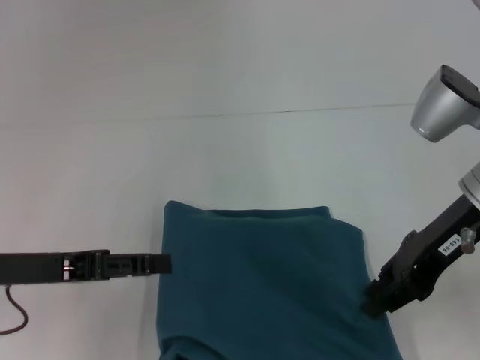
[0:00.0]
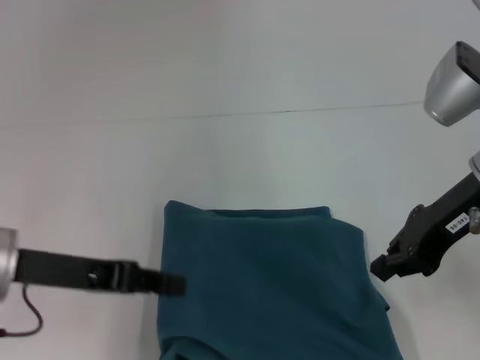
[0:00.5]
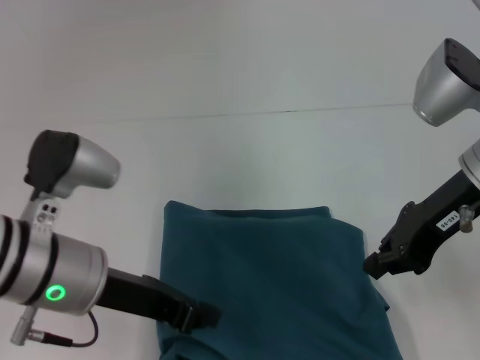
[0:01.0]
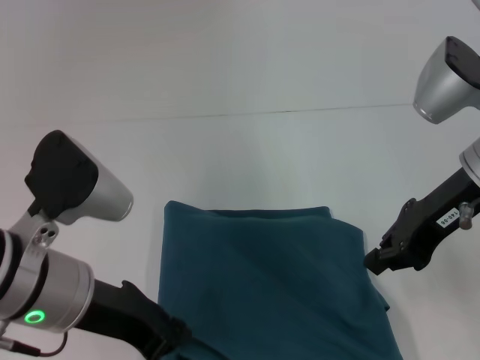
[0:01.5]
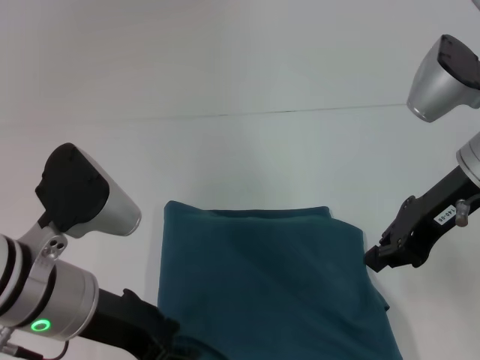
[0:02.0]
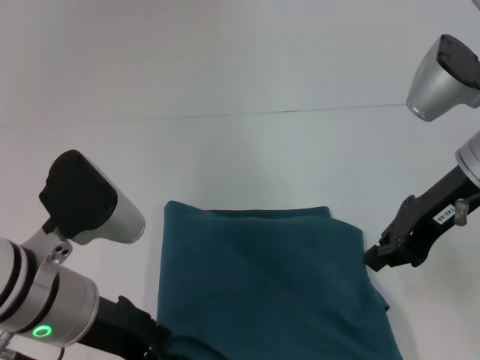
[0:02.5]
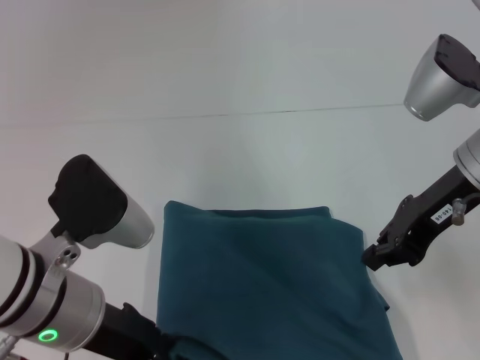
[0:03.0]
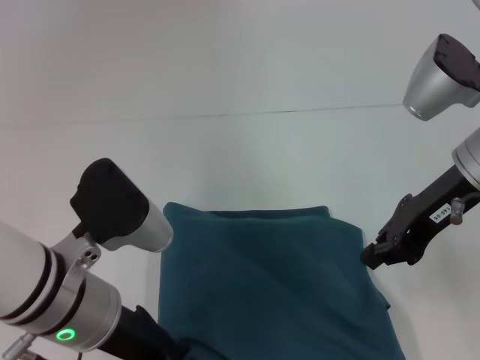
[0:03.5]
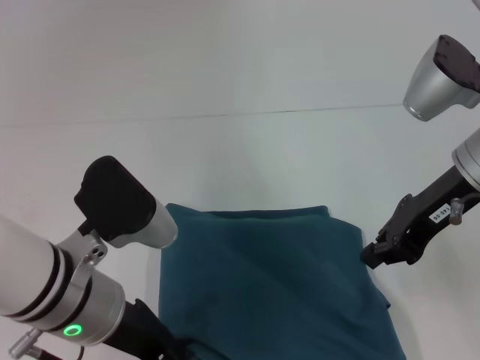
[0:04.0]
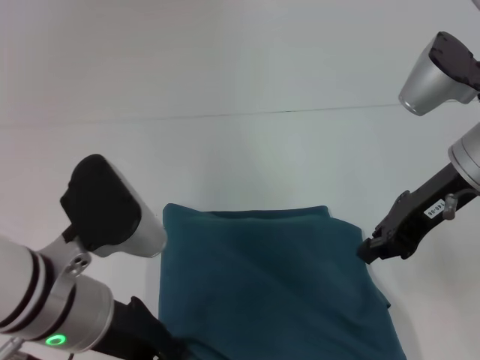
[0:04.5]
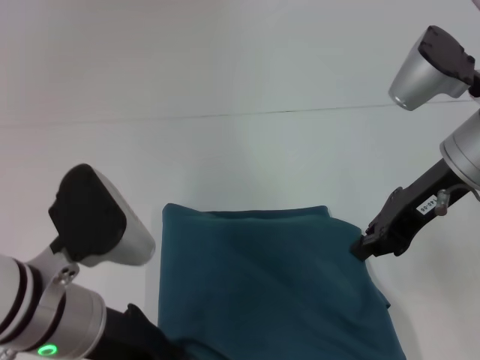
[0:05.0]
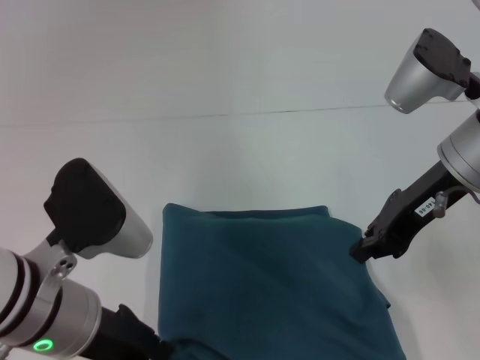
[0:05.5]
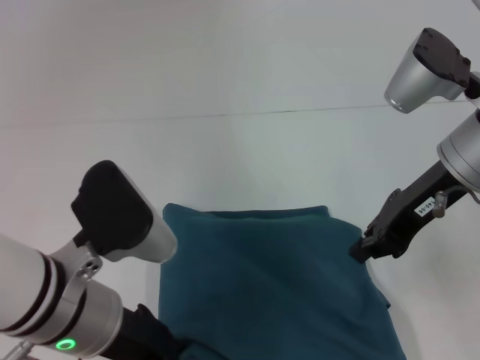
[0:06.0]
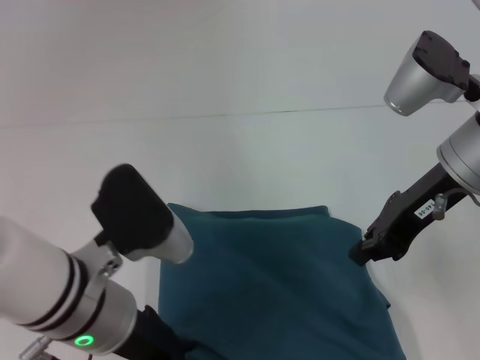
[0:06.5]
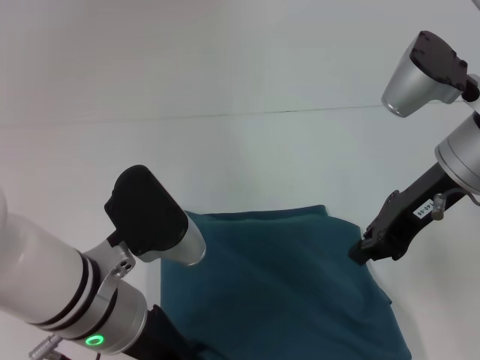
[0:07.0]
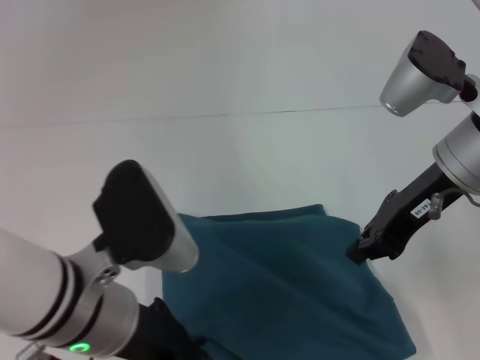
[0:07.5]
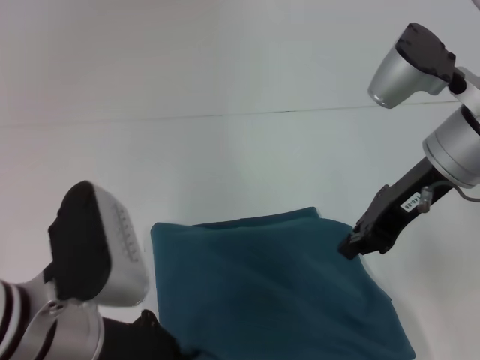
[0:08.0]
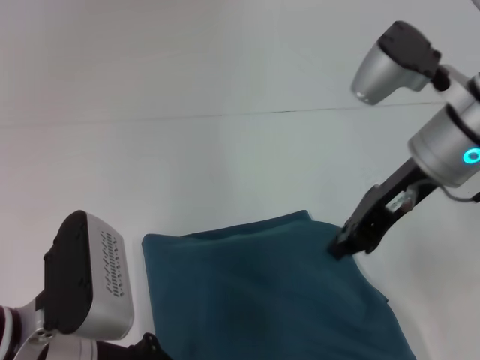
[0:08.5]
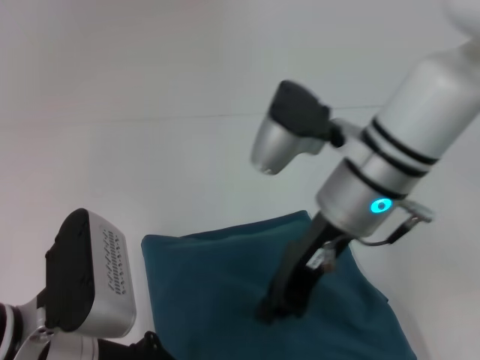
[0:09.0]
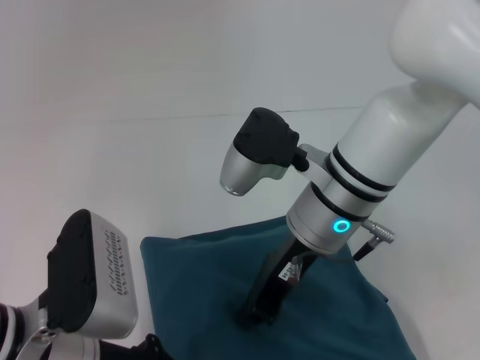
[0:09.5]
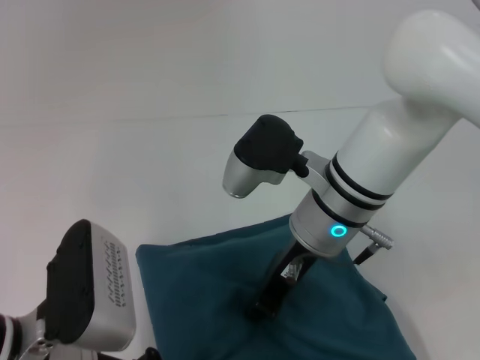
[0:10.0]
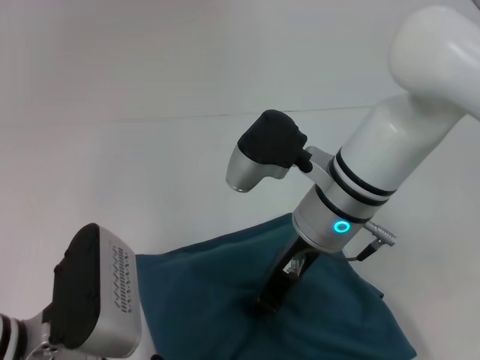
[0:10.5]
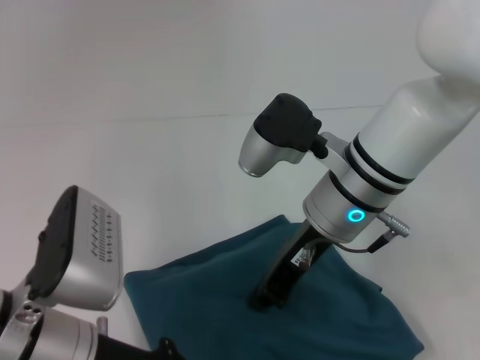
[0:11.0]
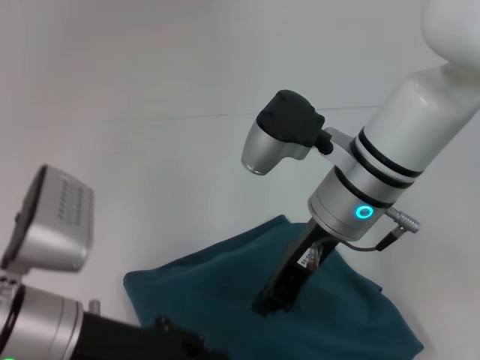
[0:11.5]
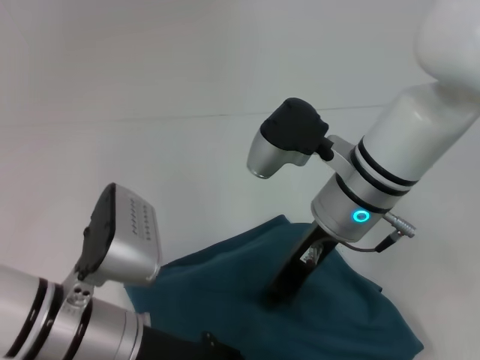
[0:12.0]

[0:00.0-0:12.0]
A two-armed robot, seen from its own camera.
0:00.0 to 0:02.0: The right gripper closes up, while the left gripper goes some 10 cm to the right, and closes its fingers.
0:02.0 to 0:04.0: There are only small adjustments of the grippers.
0:04.0 to 0:06.0: The left gripper opens.
0:06.0 to 0:08.0: The left gripper closes up.
0:08.0 to 0:10.0: The right gripper heads to the left and downward, covering about 15 cm.
0:10.0 to 0:12.0: The left gripper opens.

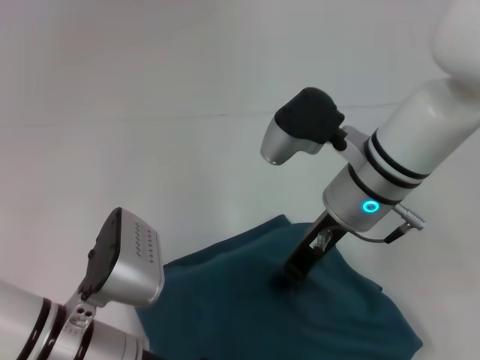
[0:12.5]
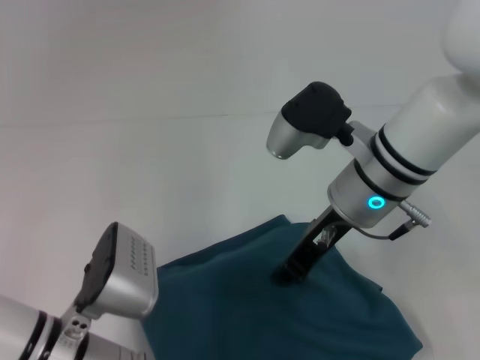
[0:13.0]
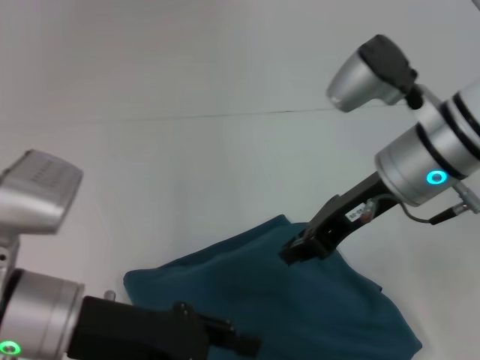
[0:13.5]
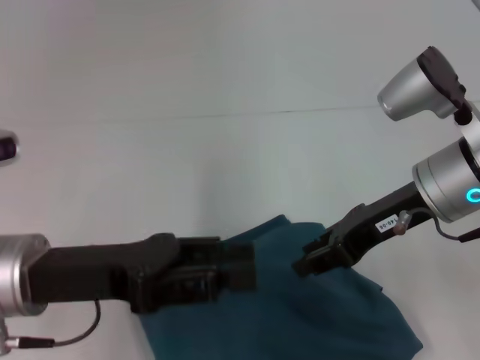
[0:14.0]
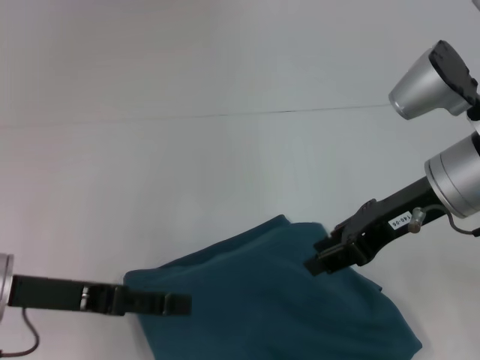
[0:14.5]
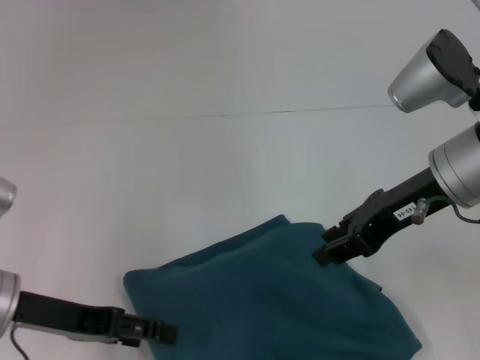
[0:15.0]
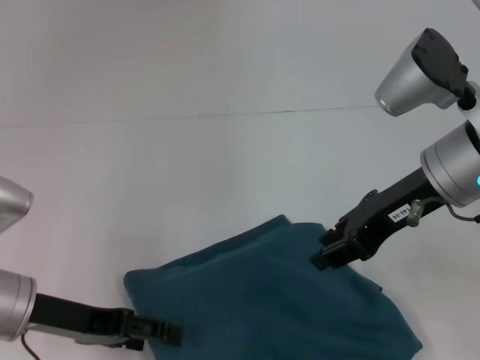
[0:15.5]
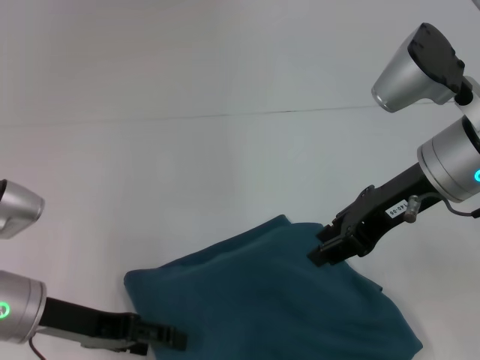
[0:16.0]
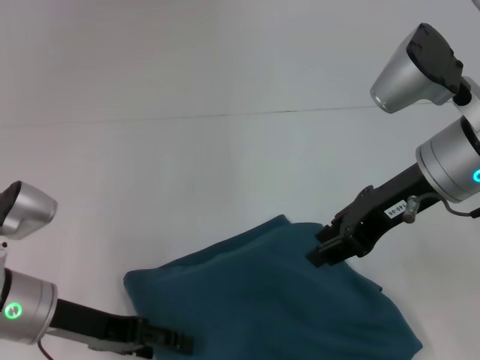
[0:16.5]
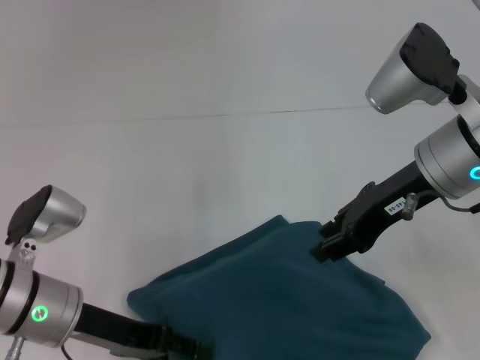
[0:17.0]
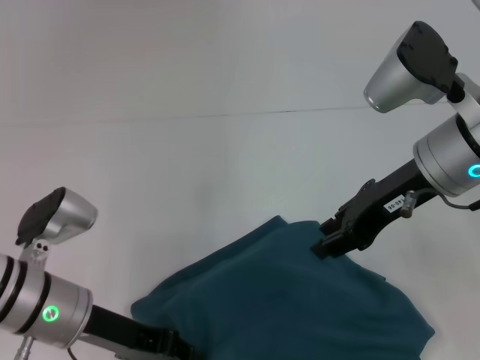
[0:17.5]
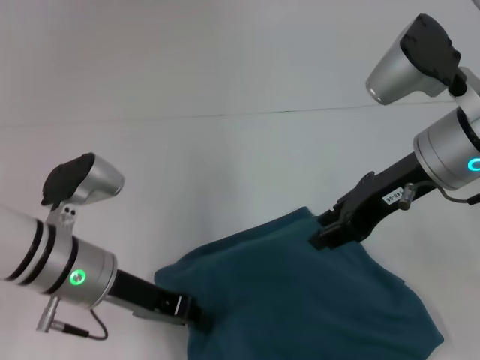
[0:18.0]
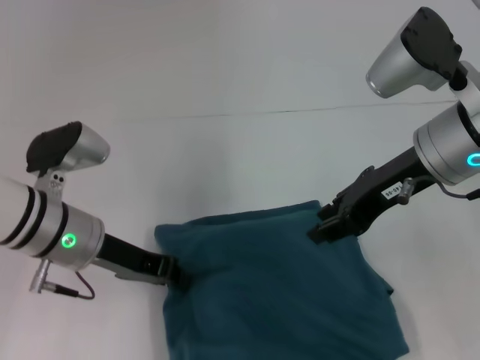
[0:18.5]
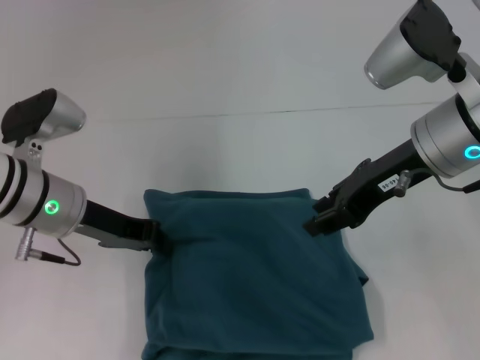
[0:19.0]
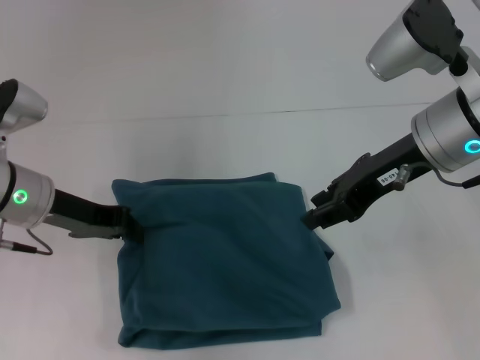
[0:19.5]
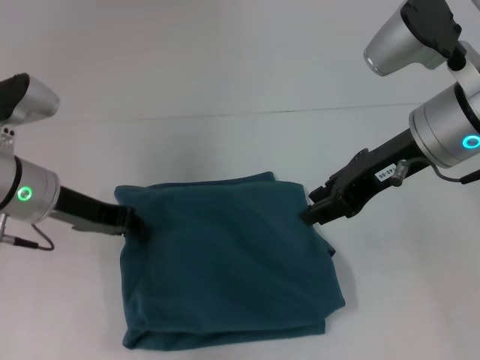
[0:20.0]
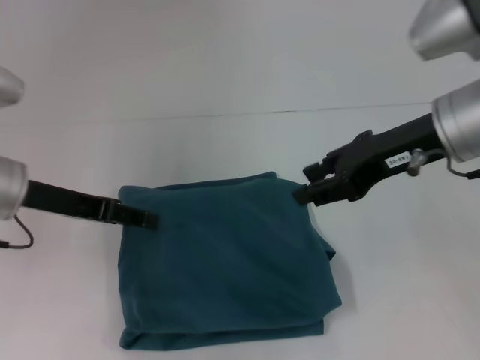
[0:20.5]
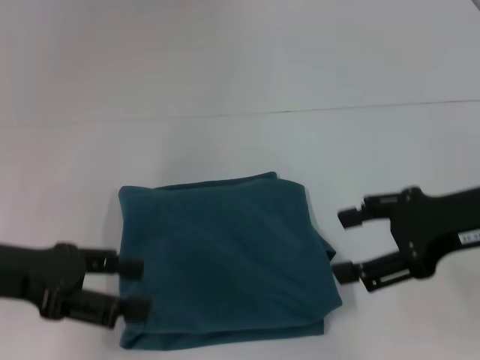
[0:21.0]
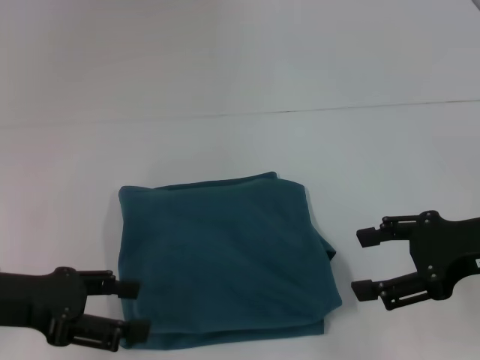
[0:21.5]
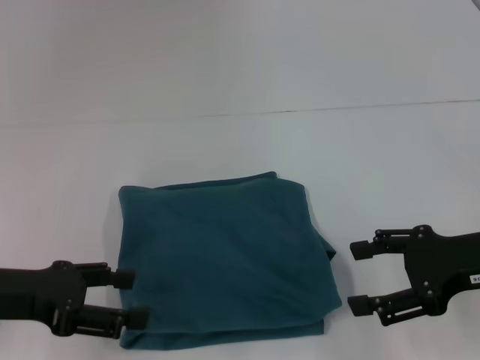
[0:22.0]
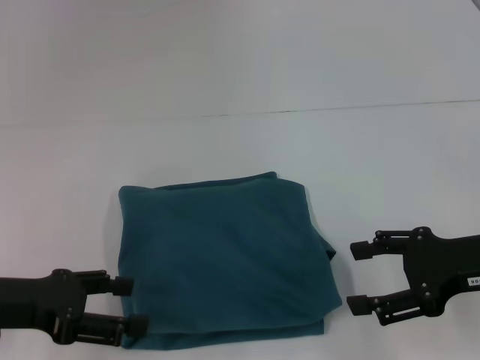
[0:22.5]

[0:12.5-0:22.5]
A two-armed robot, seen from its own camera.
0:12.5 to 0:14.5: The left gripper shifts roughly 10 cm to the left. The right gripper moves to the right, some 10 cm, and opens up.
0:14.5 to 0:16.5: There are only small adjustments of the grippers.
0:16.5 to 0:18.5: The left gripper shifts some 5 cm forward, and closes.
0:18.5 to 0:20.5: The left gripper is displaced to the left and upward by roughly 10 cm, and opens its fingers.
0:20.5 to 0:22.5: The left gripper shifts approximately 10 cm backward, and opens up; the right gripper travels downward, backward and to the right by roughly 15 cm, and opens.
